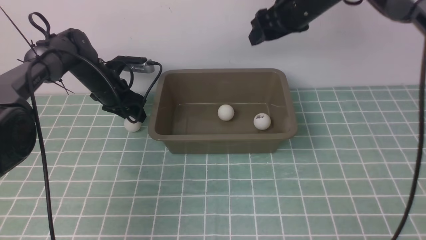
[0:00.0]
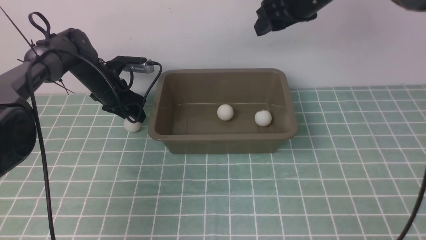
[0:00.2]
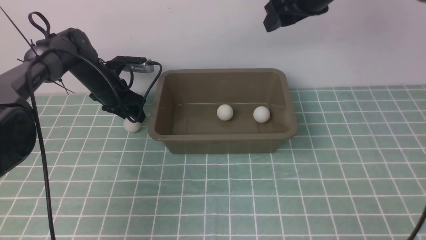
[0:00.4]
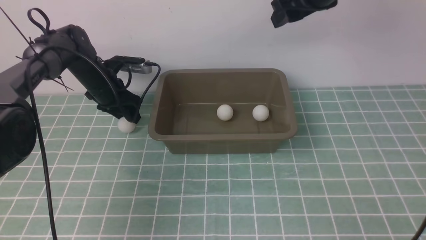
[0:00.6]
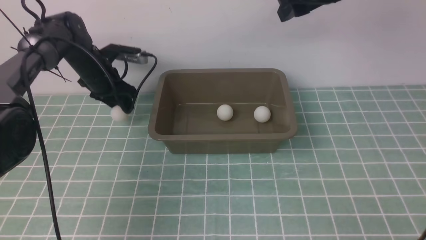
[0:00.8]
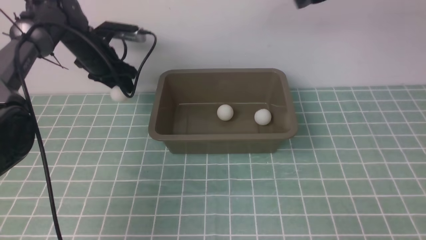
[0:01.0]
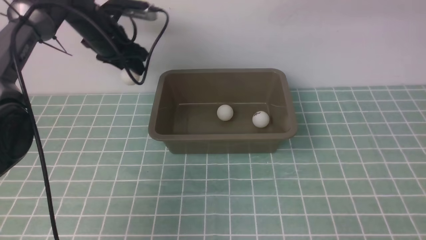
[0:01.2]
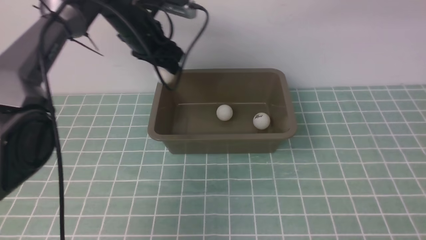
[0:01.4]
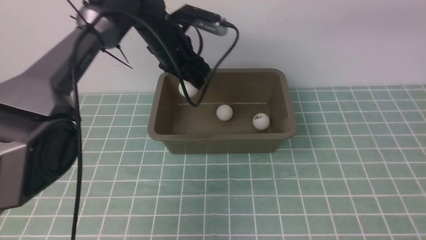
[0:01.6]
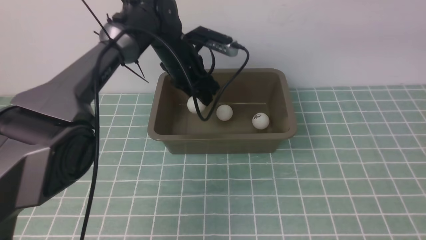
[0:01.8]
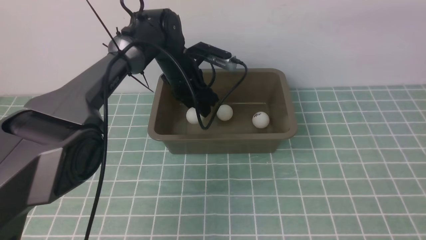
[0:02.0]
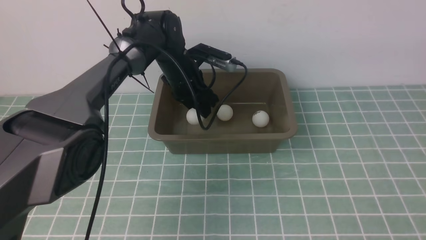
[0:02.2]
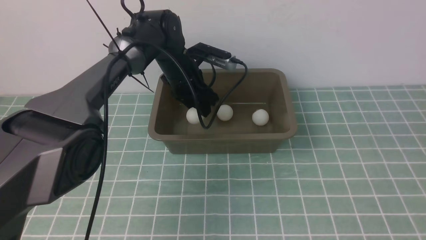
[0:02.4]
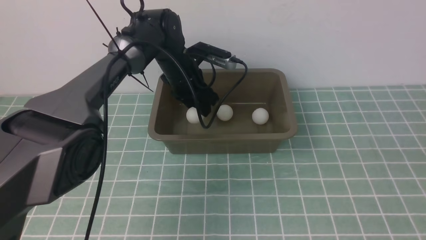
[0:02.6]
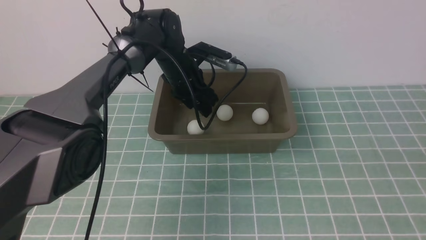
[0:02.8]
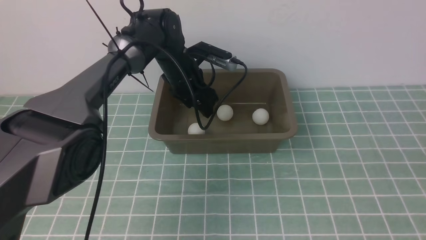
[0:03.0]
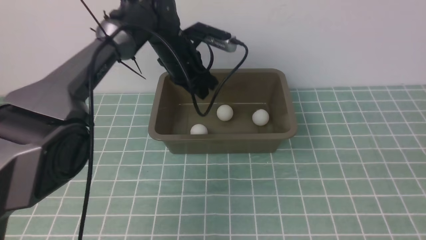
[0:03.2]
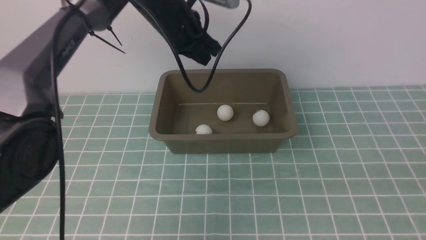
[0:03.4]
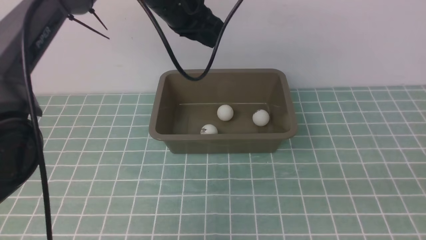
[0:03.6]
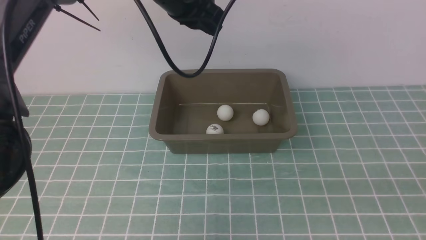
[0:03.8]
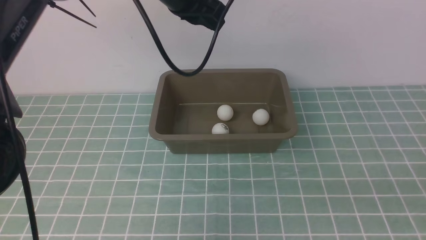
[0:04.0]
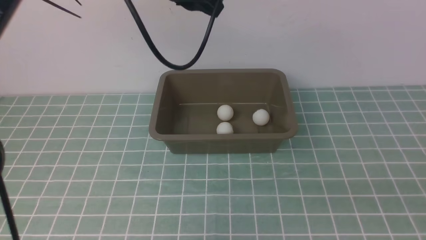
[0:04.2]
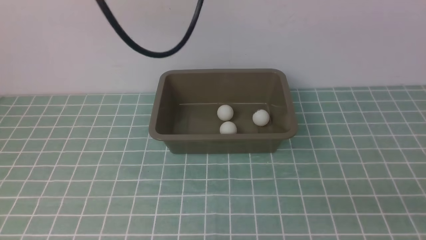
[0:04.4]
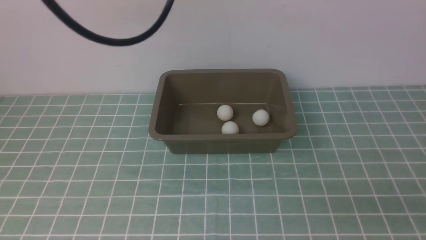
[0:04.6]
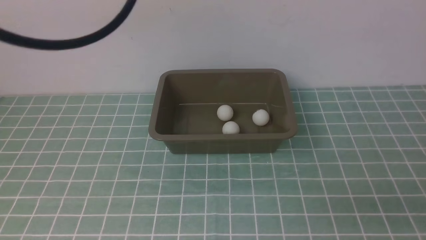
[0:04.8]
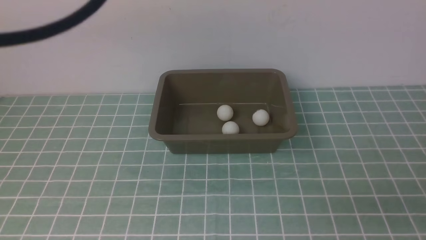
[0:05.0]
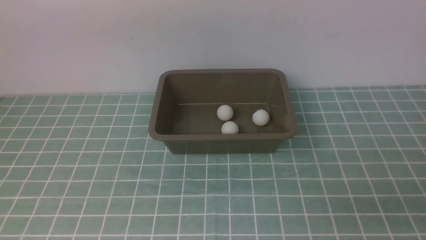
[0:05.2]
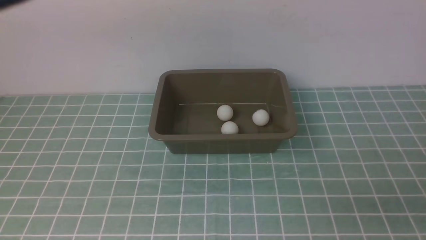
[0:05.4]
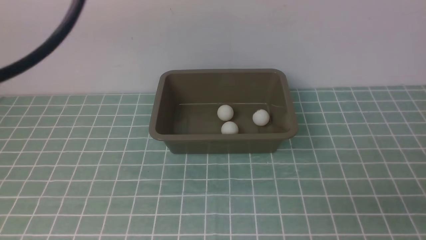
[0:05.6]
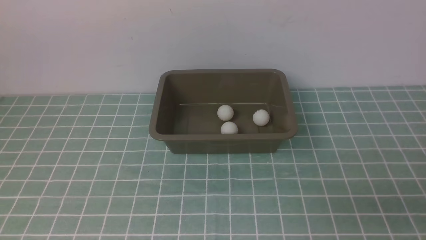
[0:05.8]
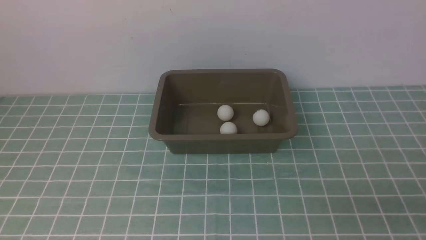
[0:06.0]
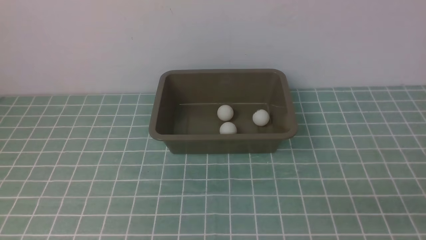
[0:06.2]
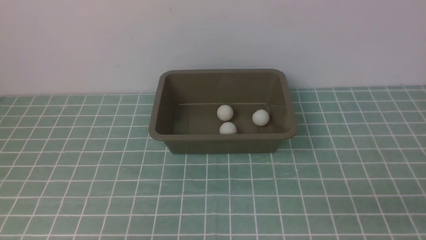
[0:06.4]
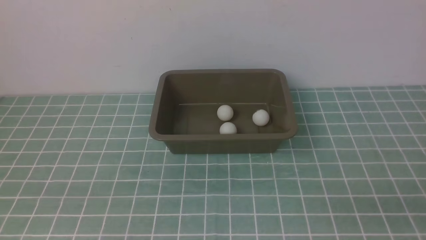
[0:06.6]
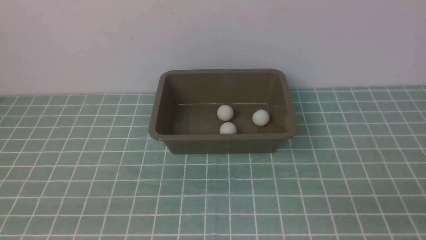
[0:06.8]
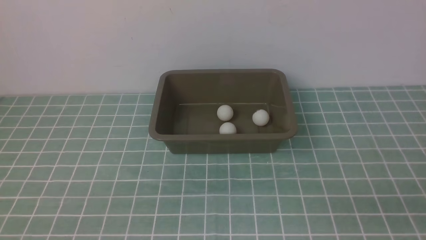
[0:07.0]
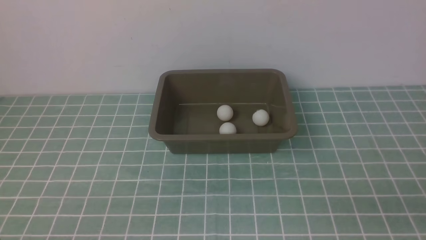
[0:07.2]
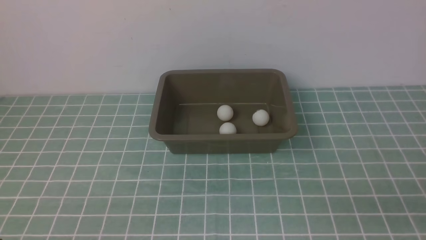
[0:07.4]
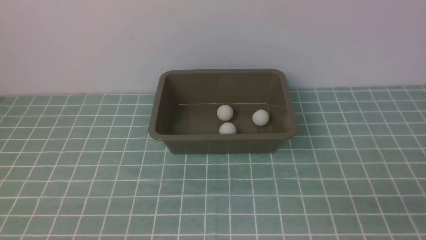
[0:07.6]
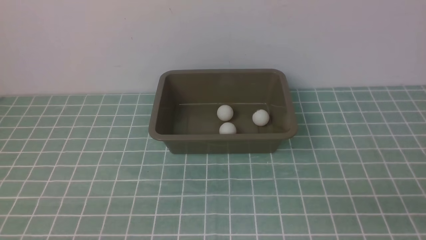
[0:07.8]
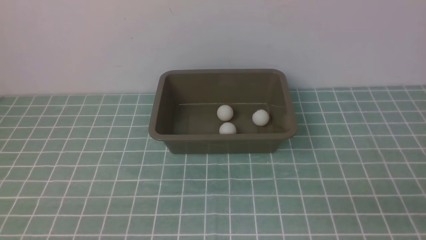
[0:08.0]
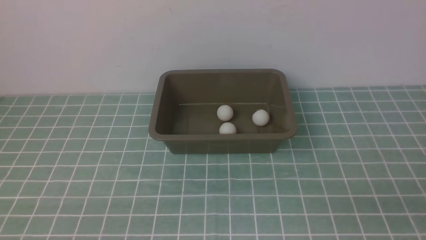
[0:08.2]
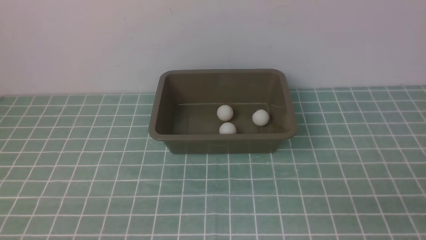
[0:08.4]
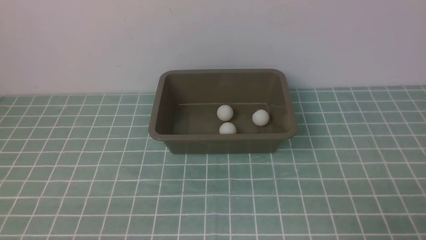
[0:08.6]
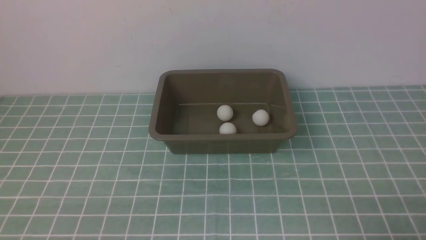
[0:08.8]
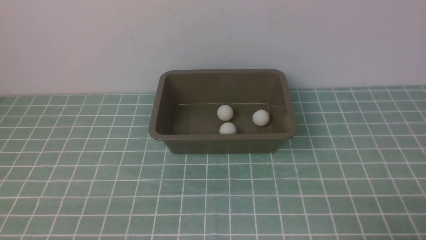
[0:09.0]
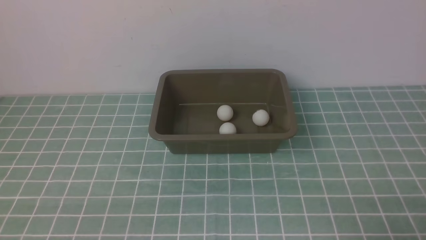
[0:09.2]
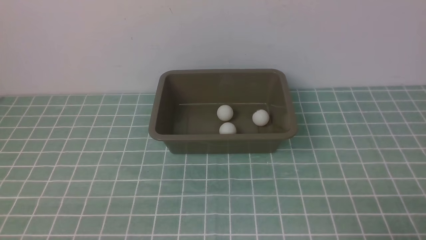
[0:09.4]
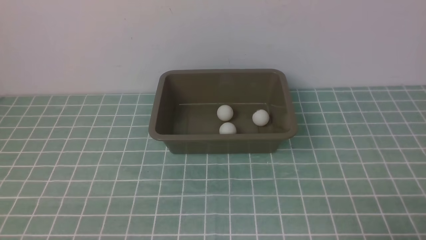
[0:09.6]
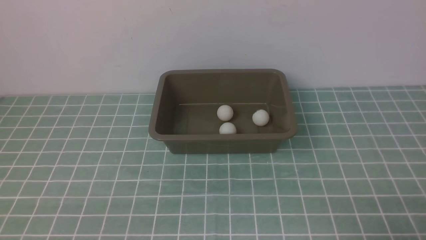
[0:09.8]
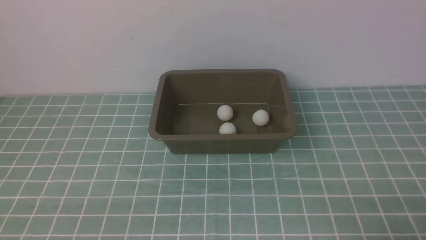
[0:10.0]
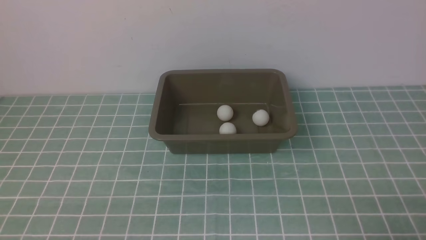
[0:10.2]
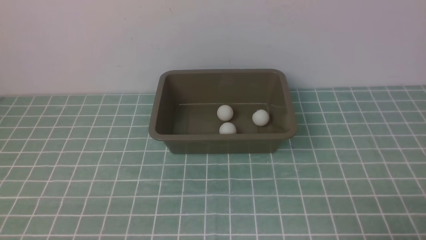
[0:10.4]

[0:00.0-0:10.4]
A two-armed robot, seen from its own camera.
Step, 0.0 to 0.8 s: use the left arm to clamp the table tennis ball closest to it.
Step, 1.0 to 3.0 s: use the left arm to put the table tennis ball into the box.
0.0 to 1.4 s: The left gripper is displaced to the right and upward by some 20 cm, while the right gripper heads to the right, backward and upward, covering roughly 25 cm, and closes its fingers.
1.4 to 3.0 s: The right gripper goes some 25 cm backward and downward.
3.0 to 4.4 s: The left gripper shifts some 30 cm upward and backward, and closes its fingers. Meanwhile the right gripper shifts roughly 5 cm downward.
4.4 to 6.0 s: The left gripper shifts roughly 25 cm backward, to the left and downward.
9.0 to 10.4 s: The two grippers keep their place.

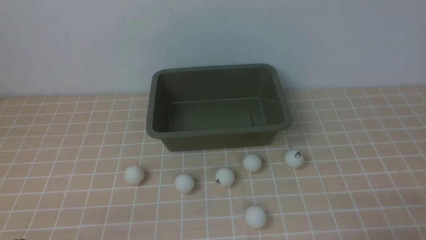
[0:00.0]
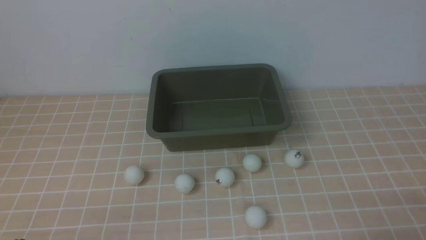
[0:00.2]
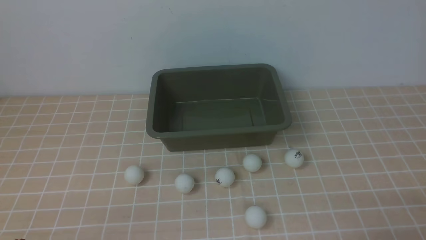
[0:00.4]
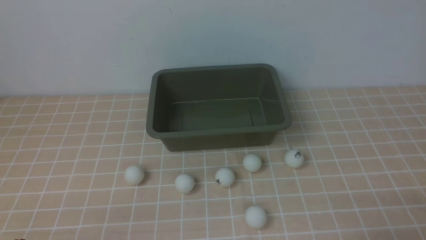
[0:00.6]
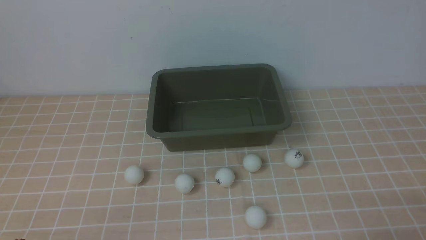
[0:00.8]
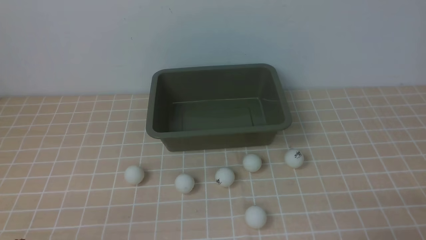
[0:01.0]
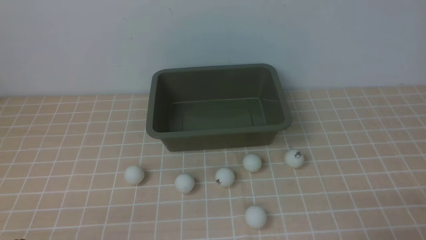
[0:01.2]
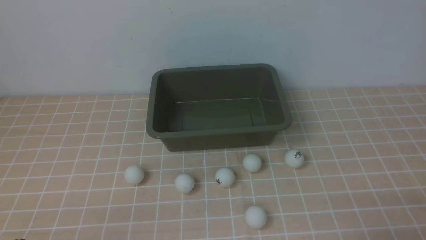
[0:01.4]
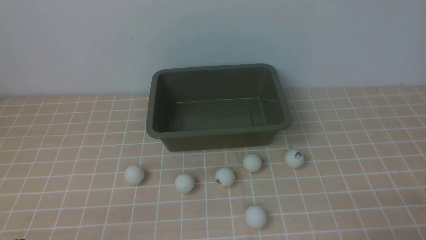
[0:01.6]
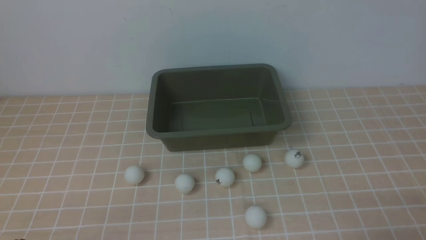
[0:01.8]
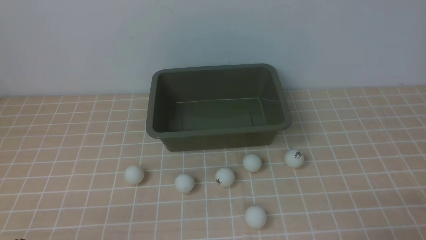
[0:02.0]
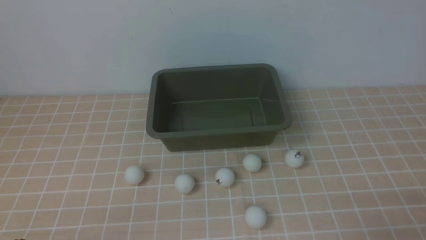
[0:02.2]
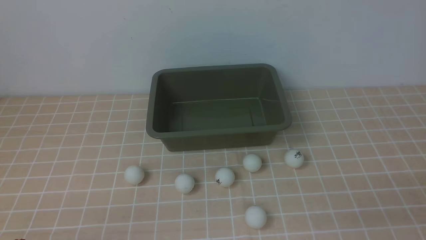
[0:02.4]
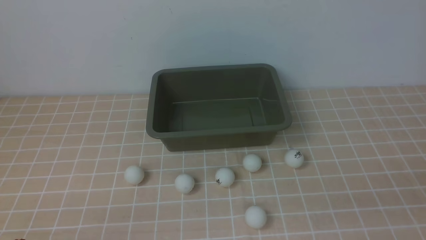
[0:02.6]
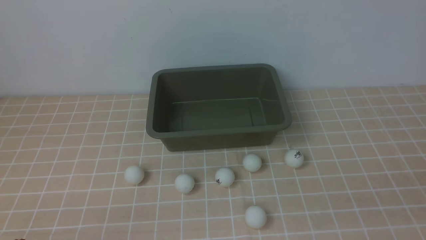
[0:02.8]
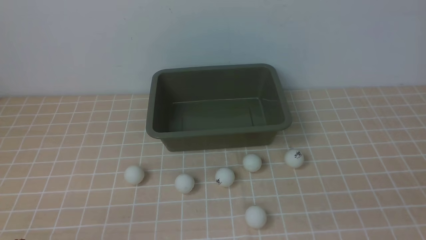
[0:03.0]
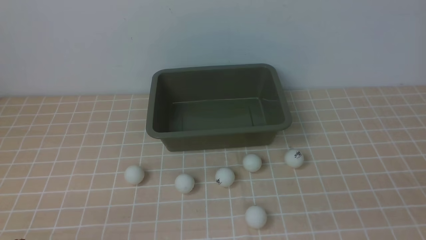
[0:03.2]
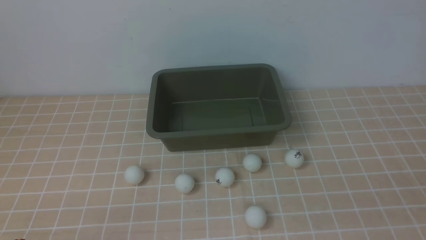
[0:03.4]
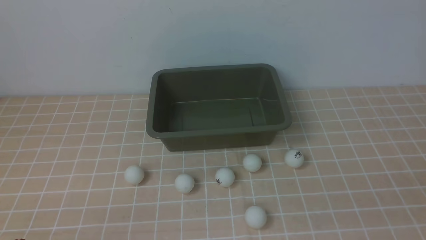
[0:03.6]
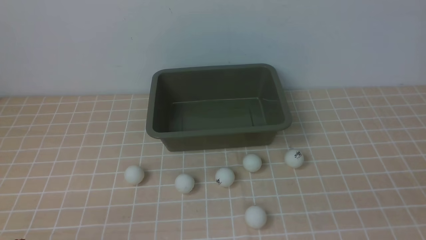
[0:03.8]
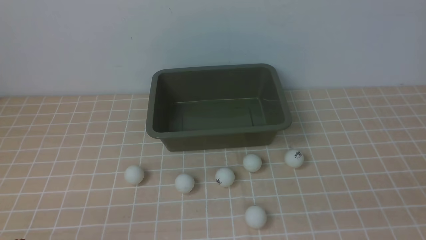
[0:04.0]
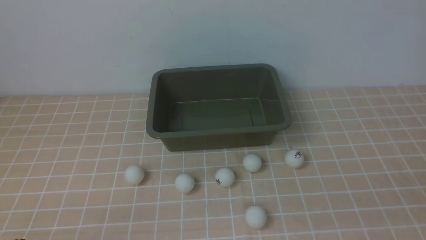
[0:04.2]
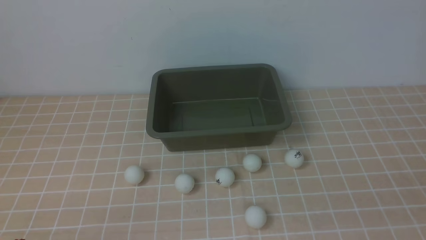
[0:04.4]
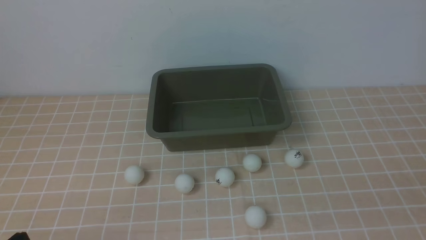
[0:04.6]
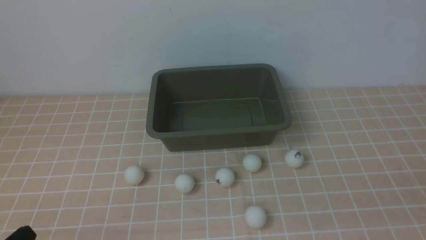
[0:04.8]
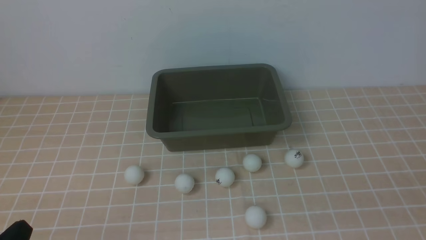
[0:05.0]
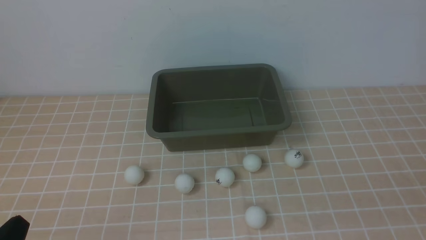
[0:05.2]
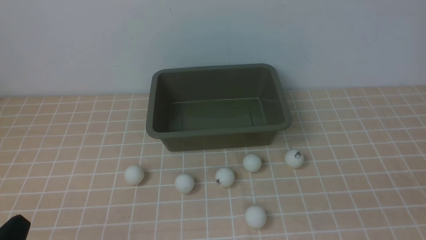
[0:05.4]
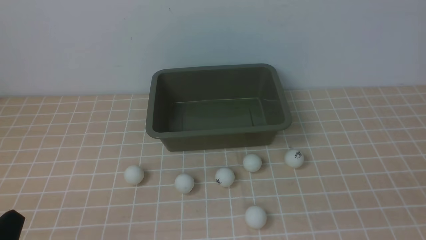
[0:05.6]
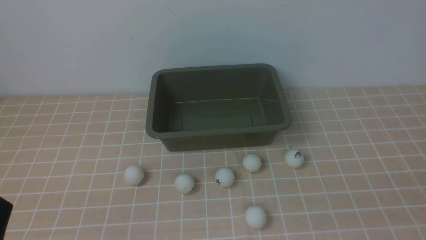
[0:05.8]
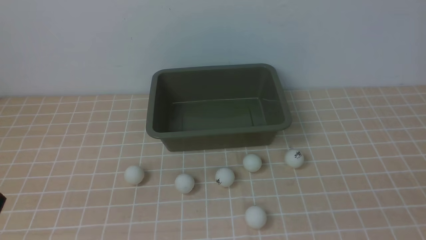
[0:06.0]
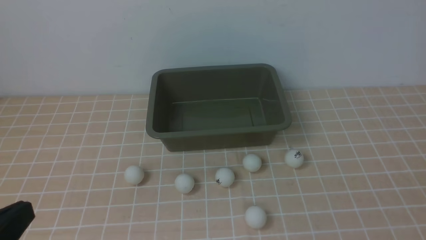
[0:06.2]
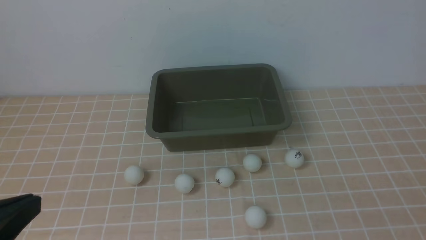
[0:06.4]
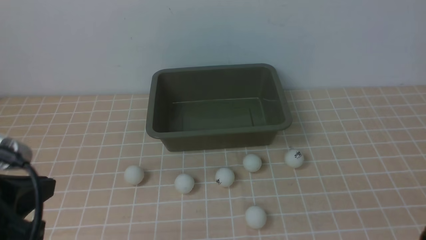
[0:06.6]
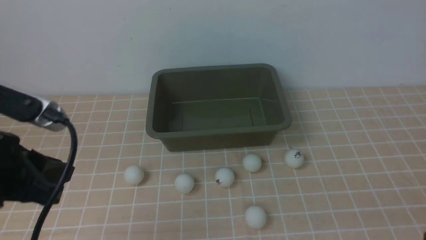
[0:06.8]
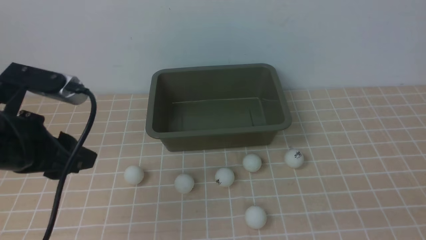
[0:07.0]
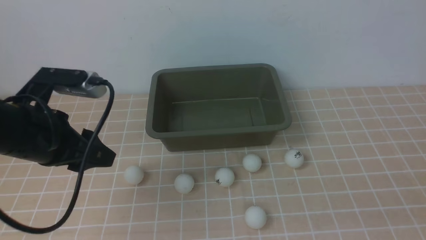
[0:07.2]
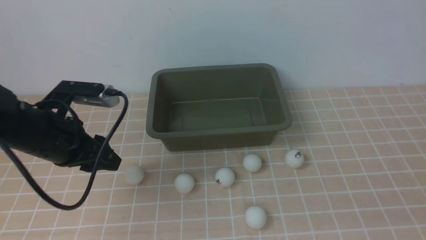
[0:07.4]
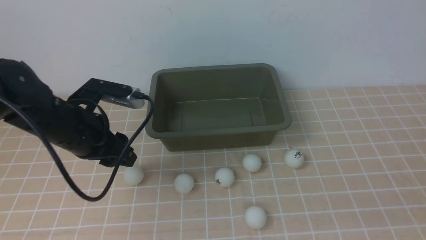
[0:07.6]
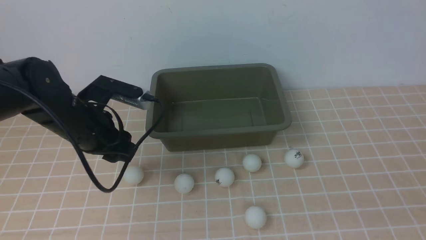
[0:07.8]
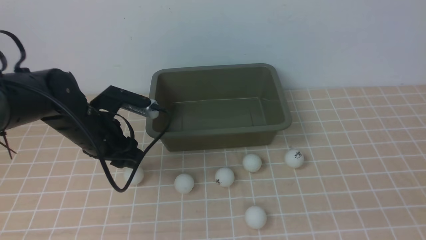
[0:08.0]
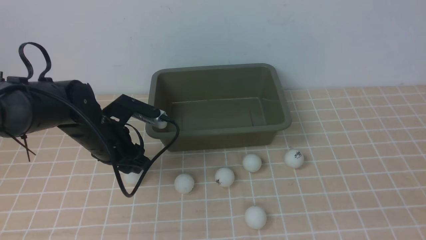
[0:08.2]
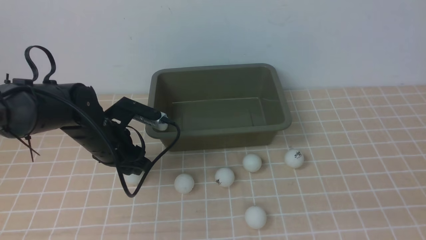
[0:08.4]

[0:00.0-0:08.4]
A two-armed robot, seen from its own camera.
0.0 to 1.4 s: Both grippers stay put.
5.6 to 7.0 s: The left gripper goes about 20 cm forward and upward, and opens up.
7.0 to 8.4 s: The left gripper moves downward and forward, roughly 20 cm.
